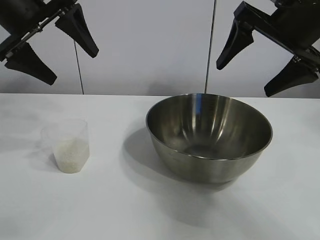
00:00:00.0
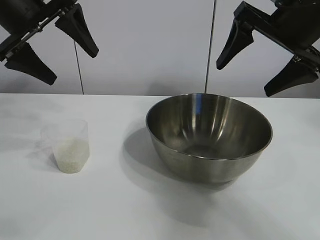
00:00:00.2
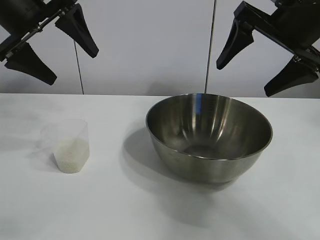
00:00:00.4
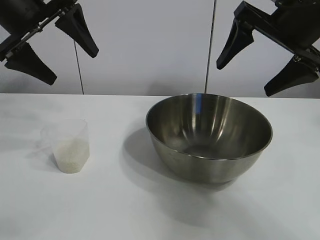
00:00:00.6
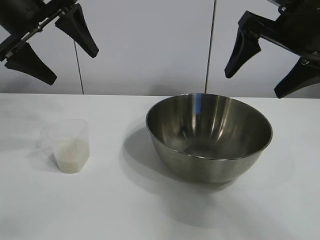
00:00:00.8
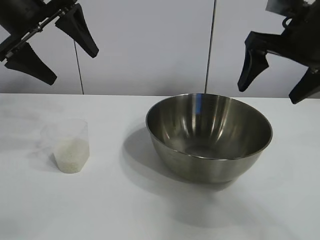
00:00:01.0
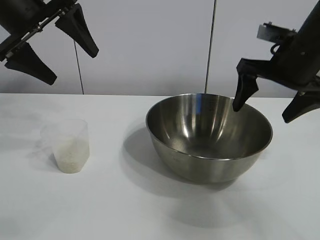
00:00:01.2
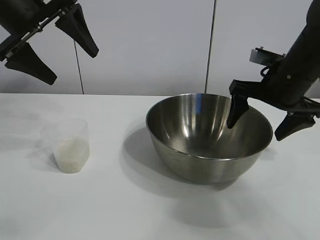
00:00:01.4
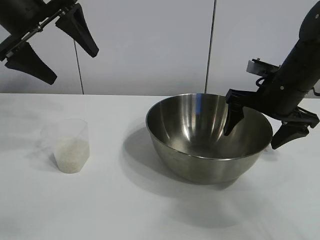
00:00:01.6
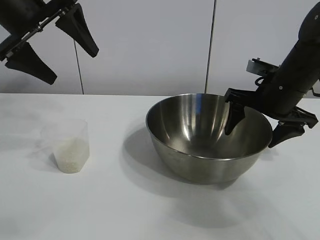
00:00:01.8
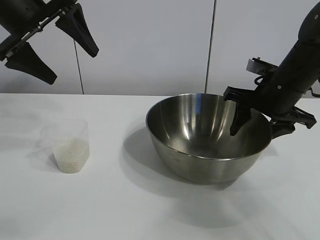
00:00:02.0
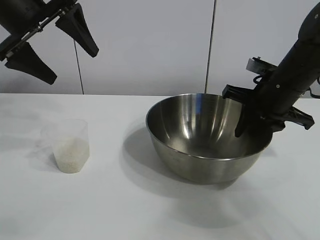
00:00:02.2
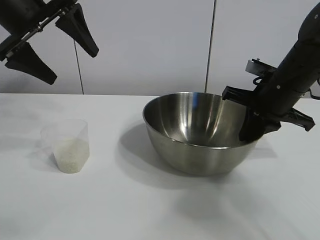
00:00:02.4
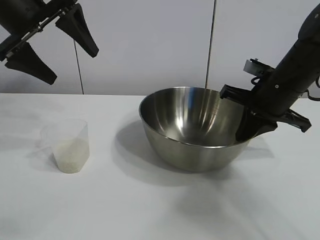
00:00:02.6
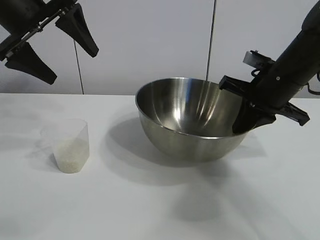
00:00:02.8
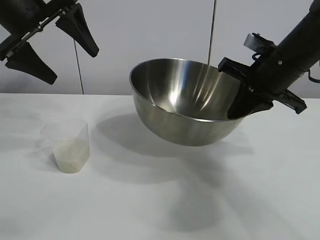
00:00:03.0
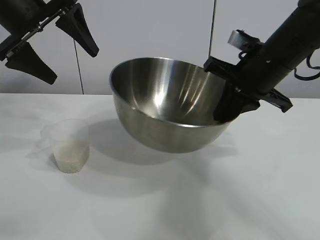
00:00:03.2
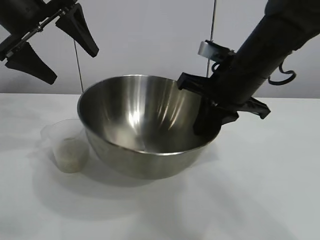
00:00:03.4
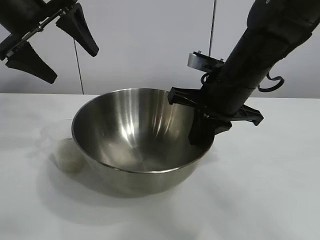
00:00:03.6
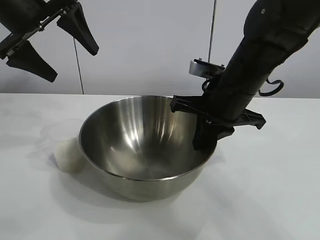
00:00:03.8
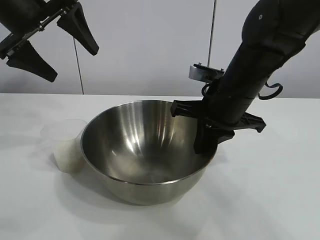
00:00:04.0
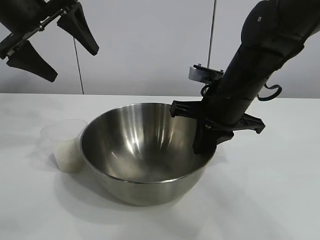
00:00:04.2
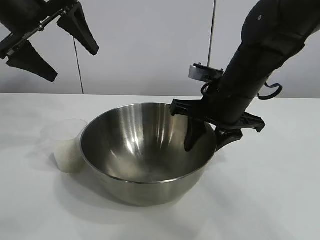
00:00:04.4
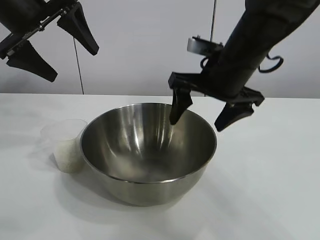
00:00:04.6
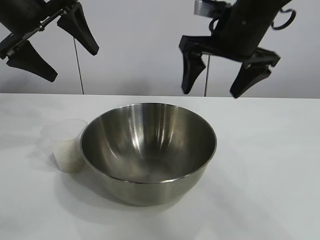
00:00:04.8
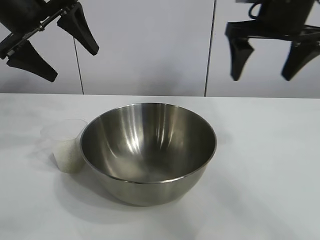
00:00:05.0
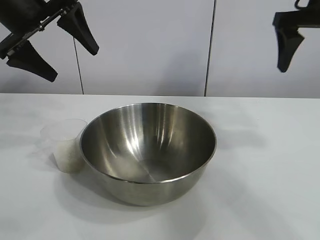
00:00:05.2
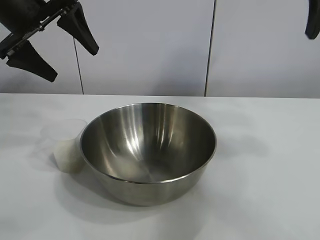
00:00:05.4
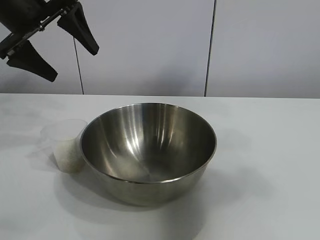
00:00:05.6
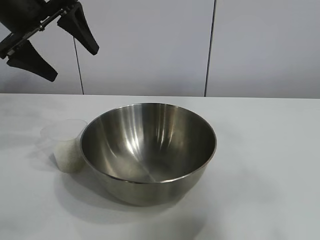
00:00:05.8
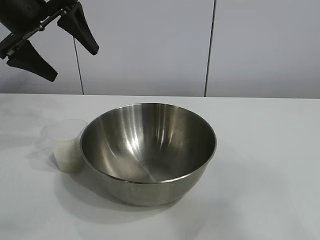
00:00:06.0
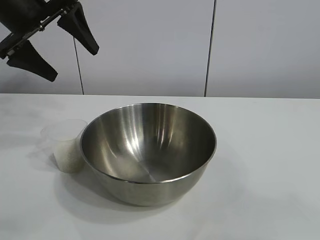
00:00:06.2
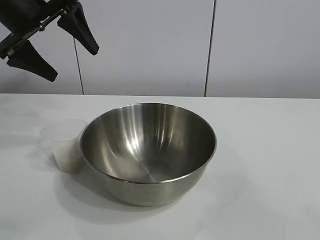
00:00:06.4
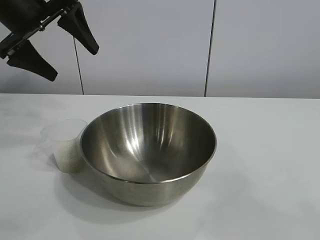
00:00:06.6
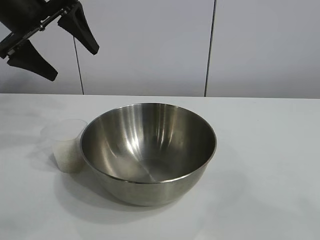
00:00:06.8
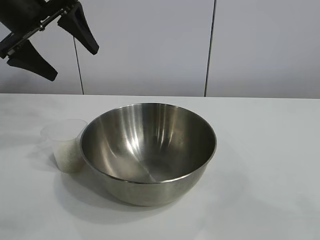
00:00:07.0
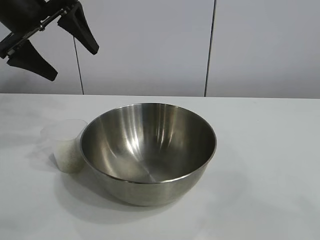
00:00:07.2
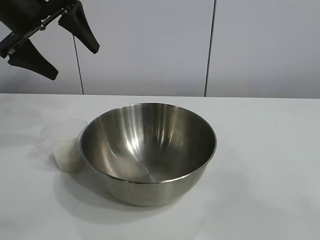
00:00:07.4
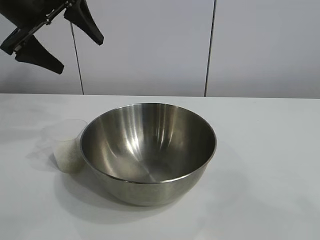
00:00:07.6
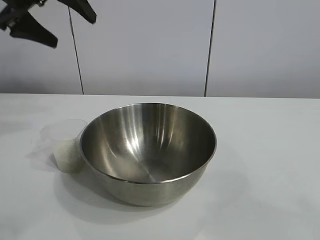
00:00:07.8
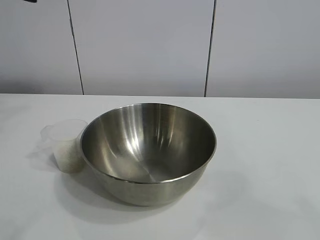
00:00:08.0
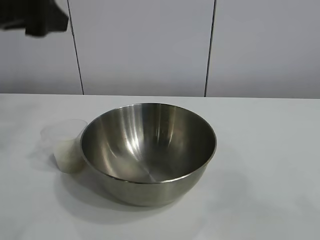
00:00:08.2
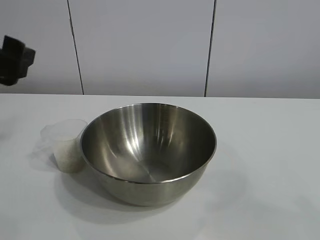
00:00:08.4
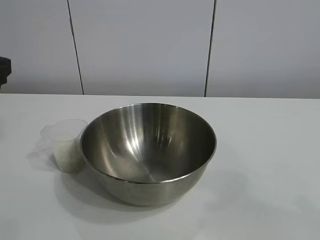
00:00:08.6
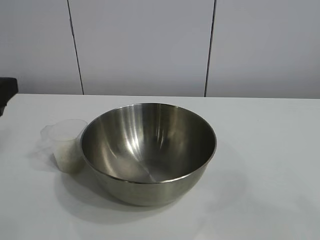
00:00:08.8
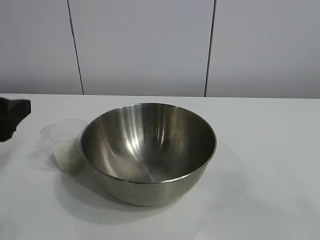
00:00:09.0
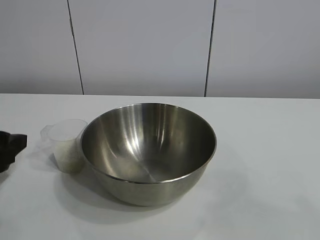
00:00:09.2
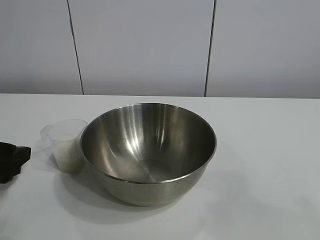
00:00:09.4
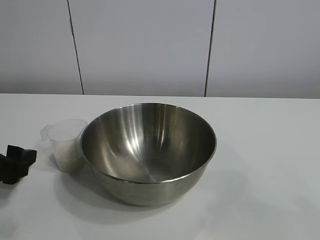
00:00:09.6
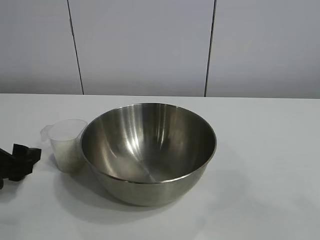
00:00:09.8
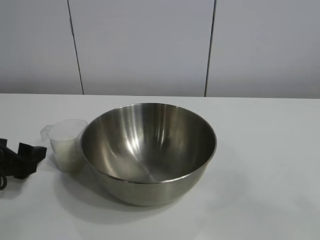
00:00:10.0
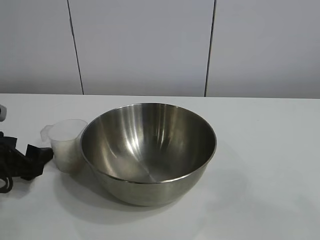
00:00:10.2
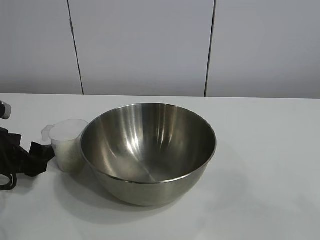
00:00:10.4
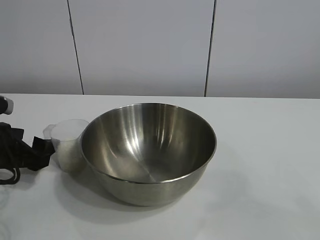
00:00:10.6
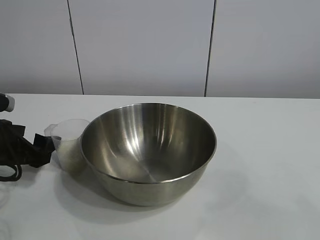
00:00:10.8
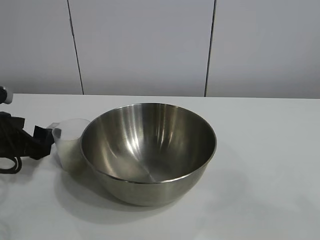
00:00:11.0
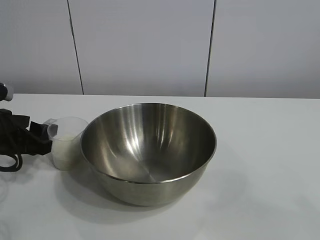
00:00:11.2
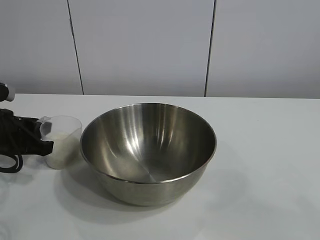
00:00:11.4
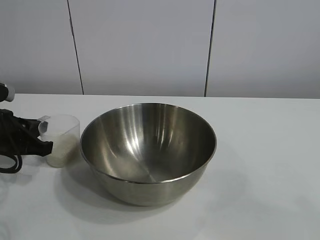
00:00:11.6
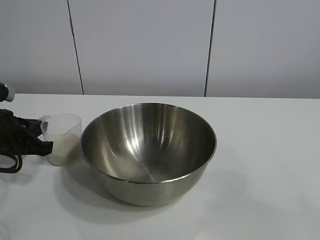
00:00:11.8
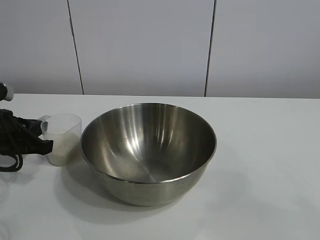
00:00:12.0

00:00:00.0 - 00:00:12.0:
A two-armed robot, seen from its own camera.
Task of the whole recording: the right gripper grasp the rice container and place it in the center of the table, the left gripper grasp the rice scoop and pour the rice into the rice container.
Step, 00:00:00.8 - 00:00:04.2: Move the bowl in the center of view with right gripper.
Step, 00:00:04.6 - 00:00:11.6: Grasp the cup with rice in it with left gripper.

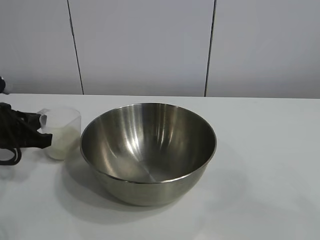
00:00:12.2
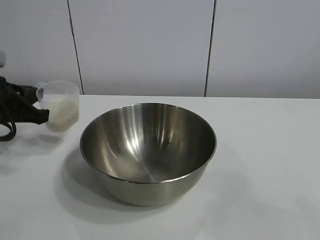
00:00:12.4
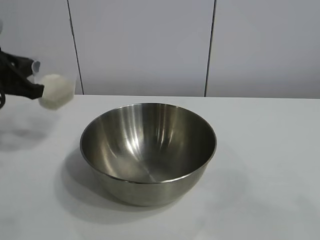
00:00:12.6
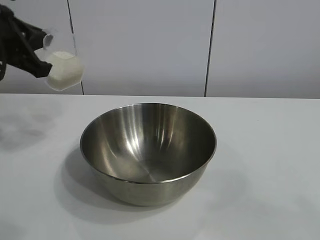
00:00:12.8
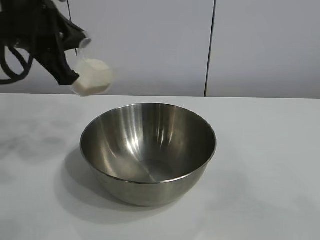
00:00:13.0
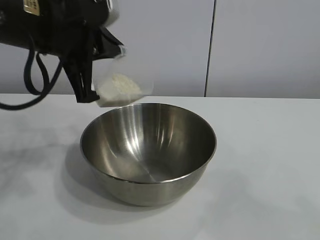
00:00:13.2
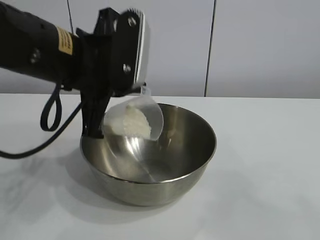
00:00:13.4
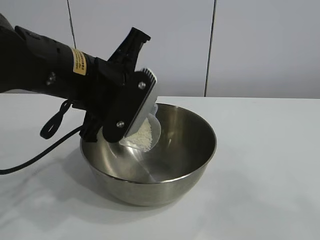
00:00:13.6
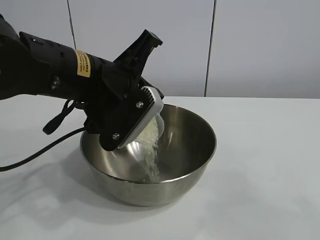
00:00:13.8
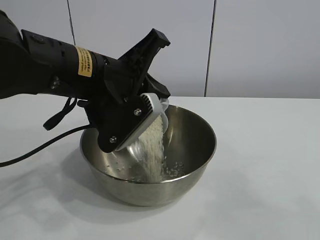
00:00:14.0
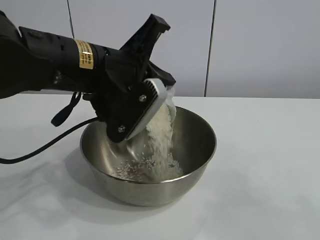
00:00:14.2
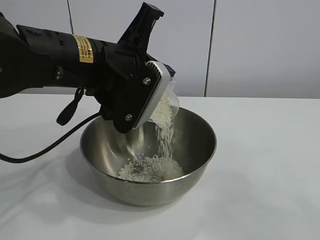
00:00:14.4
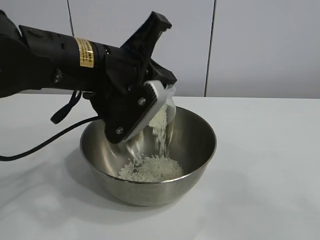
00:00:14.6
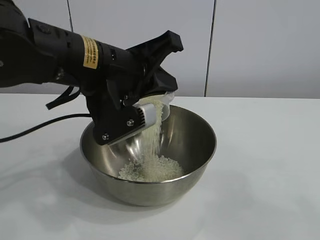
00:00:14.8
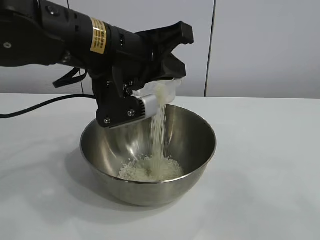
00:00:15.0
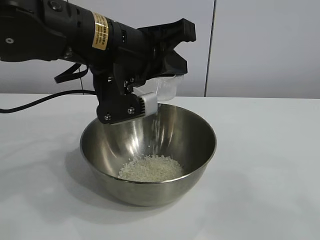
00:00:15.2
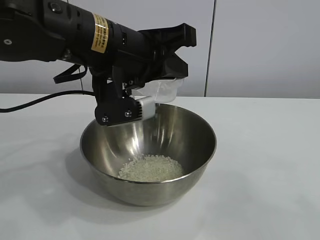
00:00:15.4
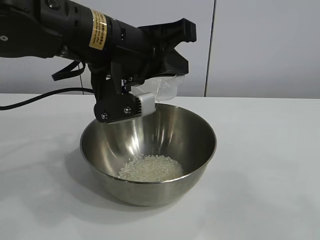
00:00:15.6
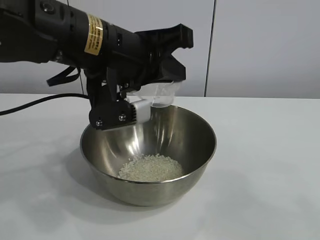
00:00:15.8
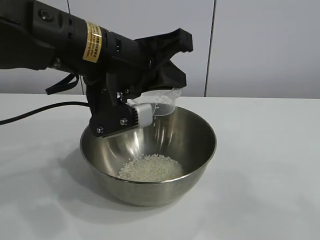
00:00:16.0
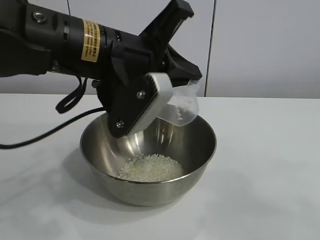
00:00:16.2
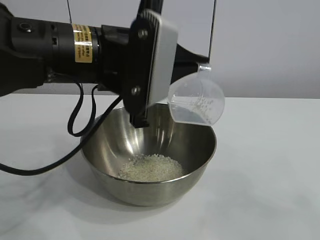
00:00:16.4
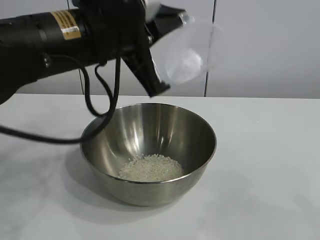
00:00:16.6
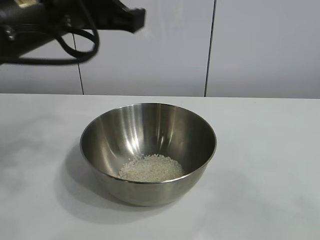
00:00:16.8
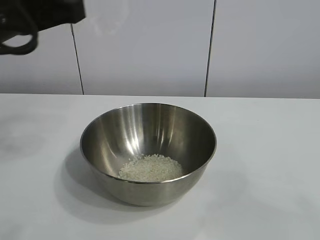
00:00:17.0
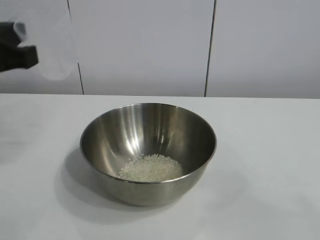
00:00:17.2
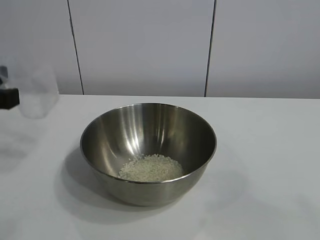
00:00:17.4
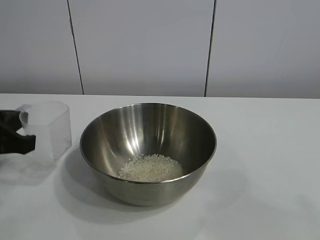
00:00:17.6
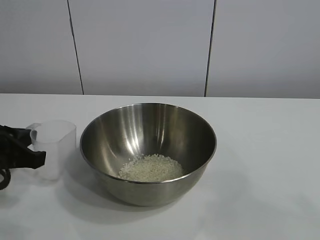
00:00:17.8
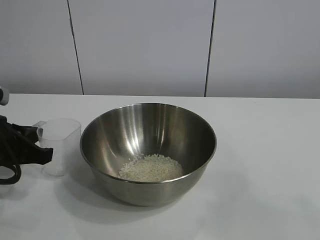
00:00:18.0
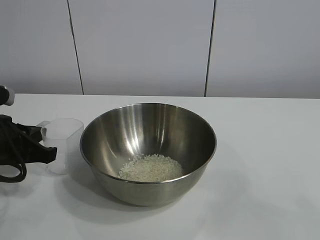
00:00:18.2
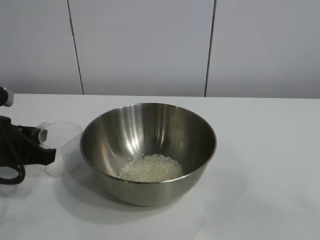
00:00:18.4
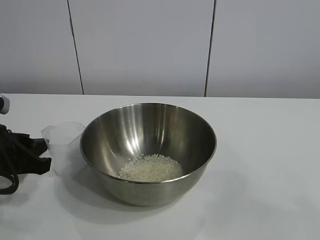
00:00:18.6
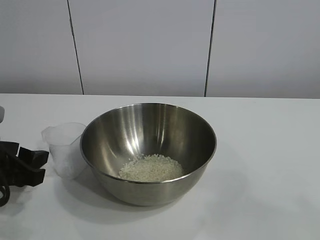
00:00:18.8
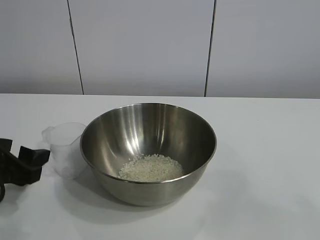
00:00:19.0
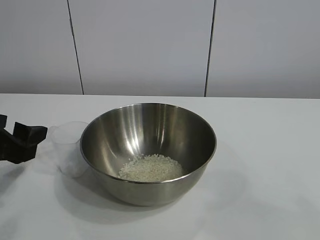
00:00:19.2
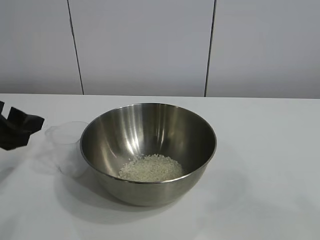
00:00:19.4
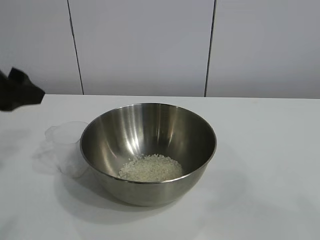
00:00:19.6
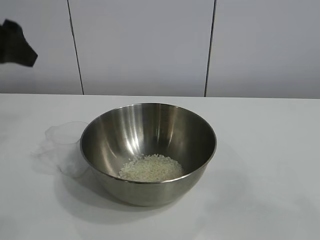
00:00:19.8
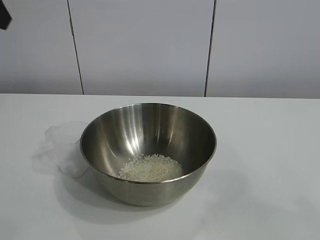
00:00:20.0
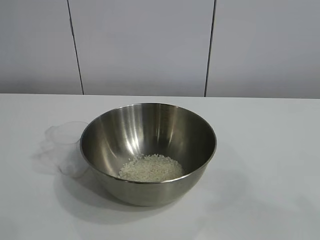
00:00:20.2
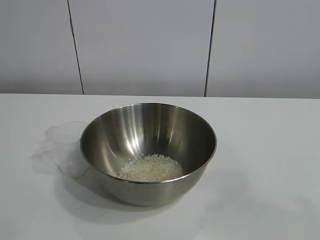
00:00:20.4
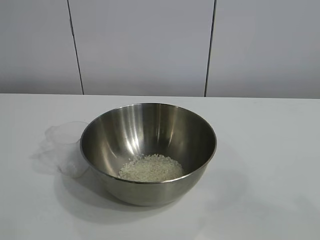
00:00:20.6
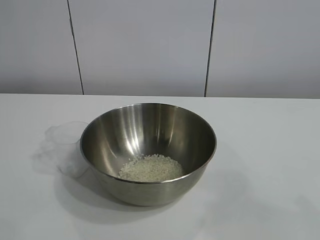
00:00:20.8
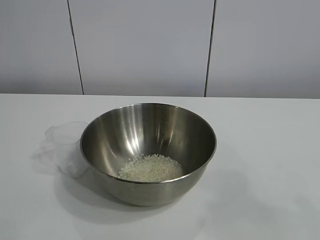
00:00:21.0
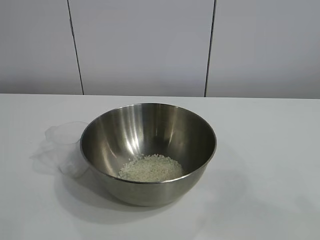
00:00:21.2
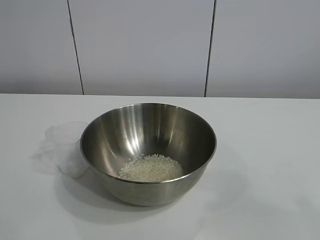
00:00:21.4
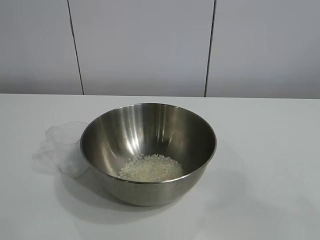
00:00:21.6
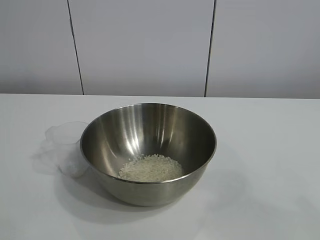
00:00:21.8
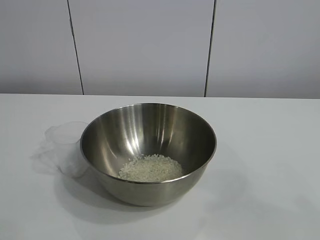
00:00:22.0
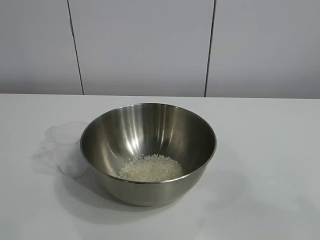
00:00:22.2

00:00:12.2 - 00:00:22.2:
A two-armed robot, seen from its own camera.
Task of the whole recording: the right gripper grasp the rice container and place it in the center of the table, the left gripper grasp the rice scoop and pour the rice into the rice container.
Step, 00:00:12.2 - 00:00:15.4: Pour the rice from the cup into the bowl with the left gripper.
Step, 00:00:15.6 - 00:00:18.4: Place the cup on the table with the left gripper.

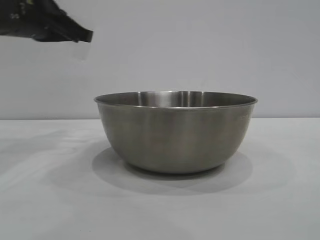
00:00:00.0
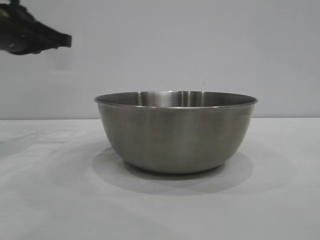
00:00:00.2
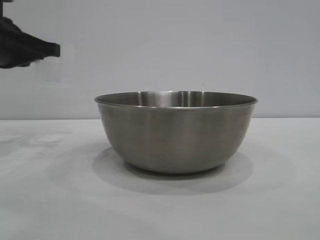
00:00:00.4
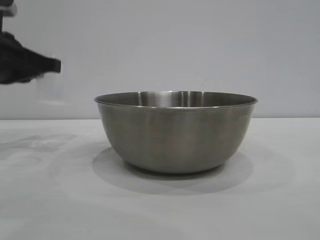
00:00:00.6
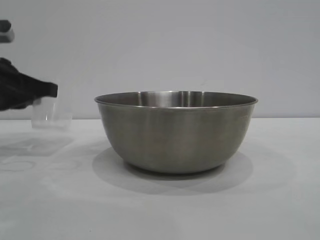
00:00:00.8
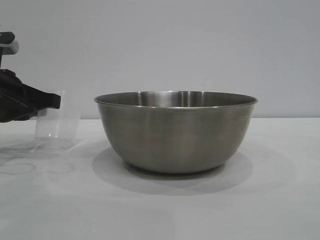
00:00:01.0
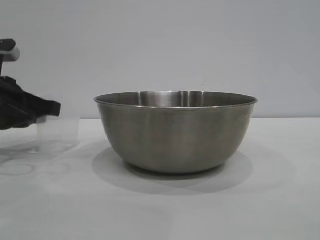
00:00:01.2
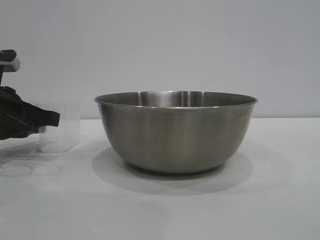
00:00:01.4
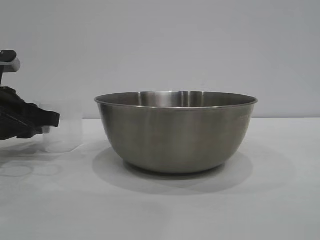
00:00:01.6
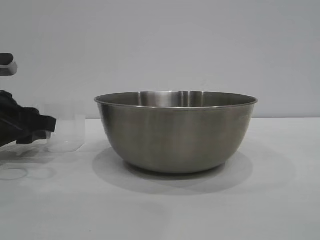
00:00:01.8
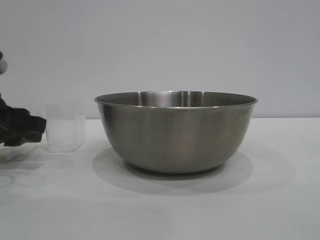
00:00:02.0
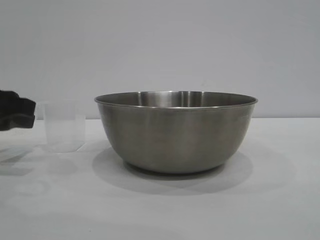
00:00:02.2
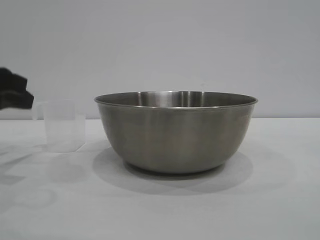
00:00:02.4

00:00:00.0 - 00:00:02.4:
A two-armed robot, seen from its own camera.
Task of the whole recording: the right gripper grasp the rice container and place it in the center of the table, the left gripper grasp the rice scoop and pour the rice into the rice container.
Step, 00:00:00.0 - 00:00:02.0: Place the cup on the table with the left gripper.